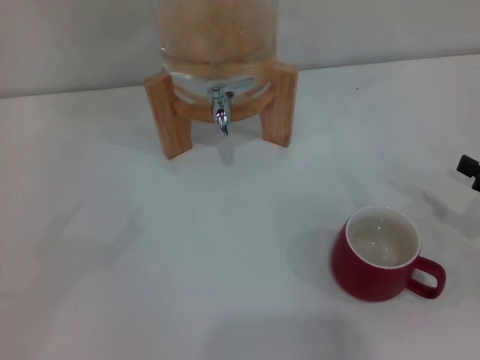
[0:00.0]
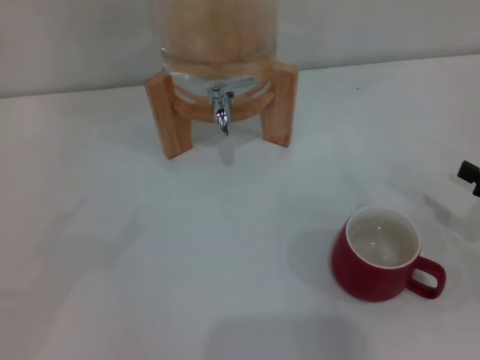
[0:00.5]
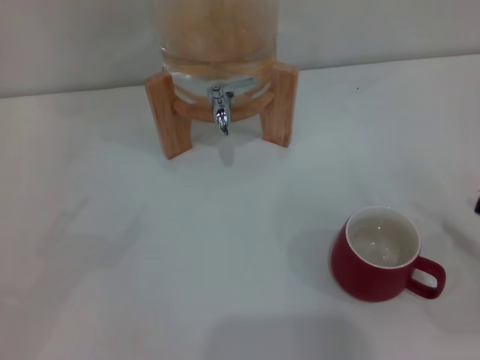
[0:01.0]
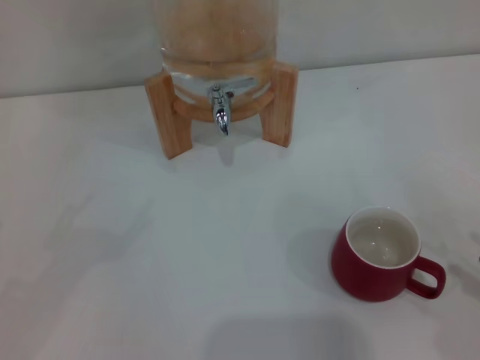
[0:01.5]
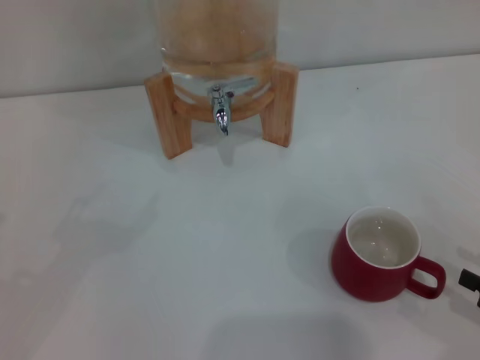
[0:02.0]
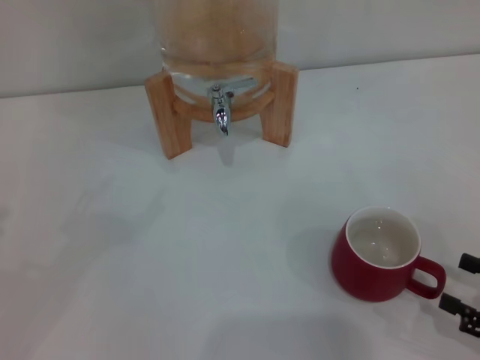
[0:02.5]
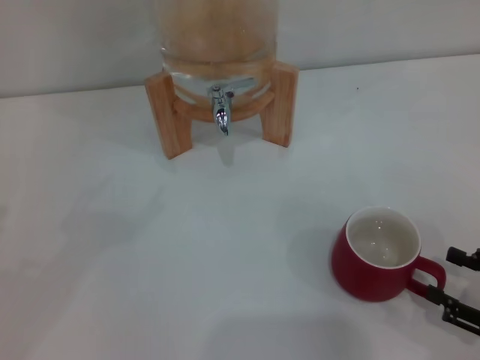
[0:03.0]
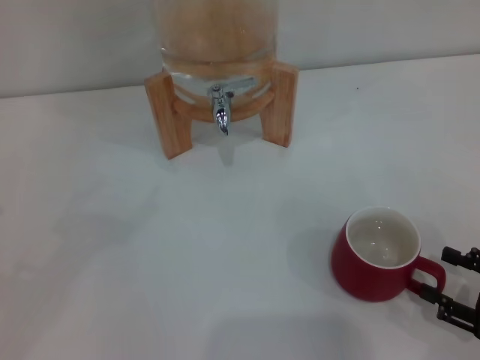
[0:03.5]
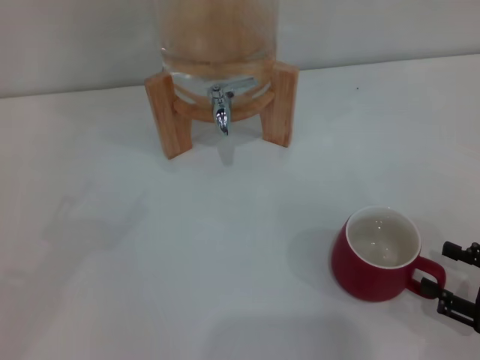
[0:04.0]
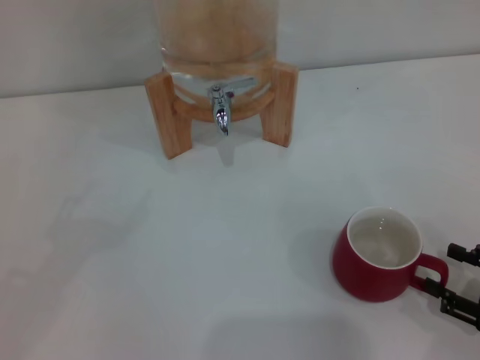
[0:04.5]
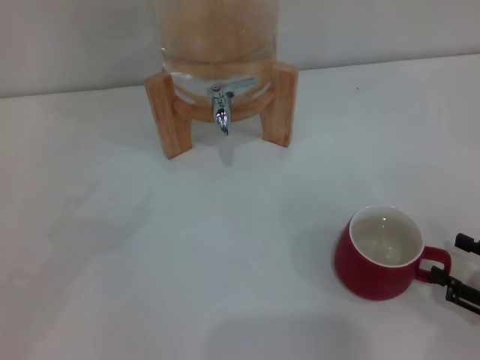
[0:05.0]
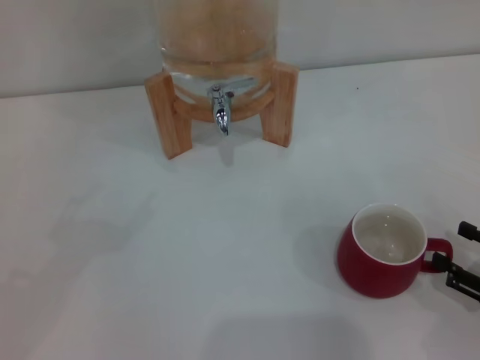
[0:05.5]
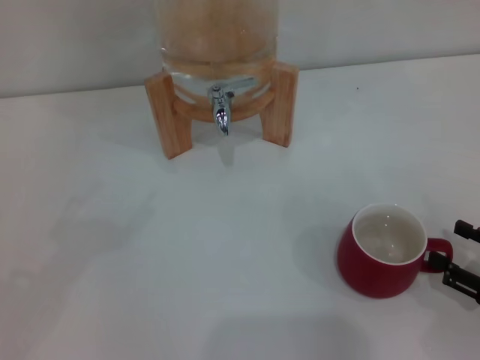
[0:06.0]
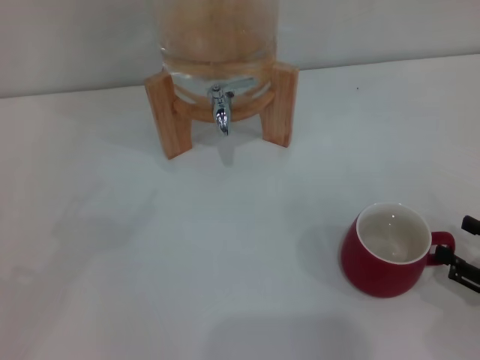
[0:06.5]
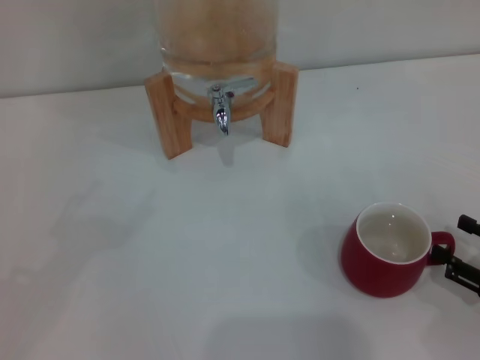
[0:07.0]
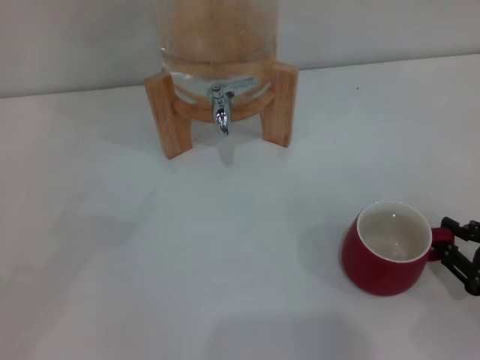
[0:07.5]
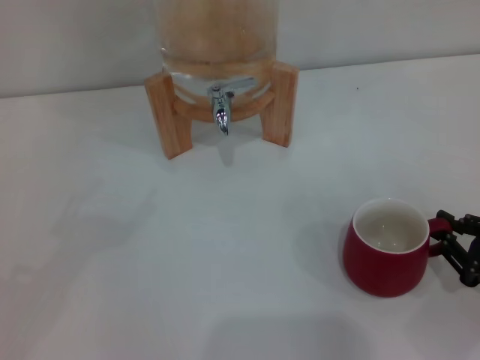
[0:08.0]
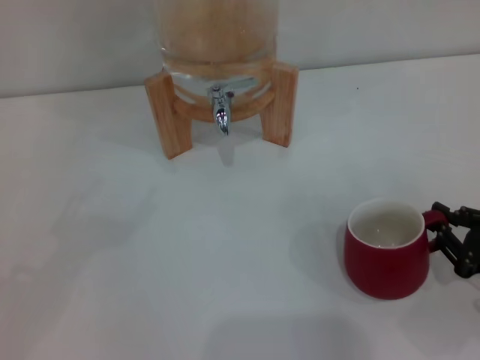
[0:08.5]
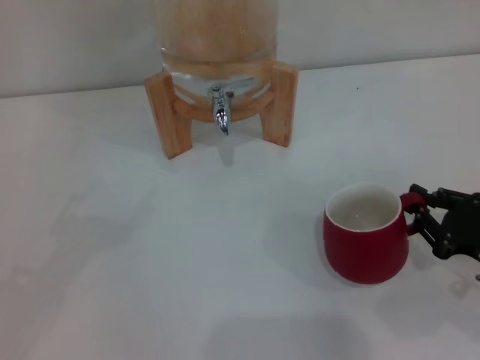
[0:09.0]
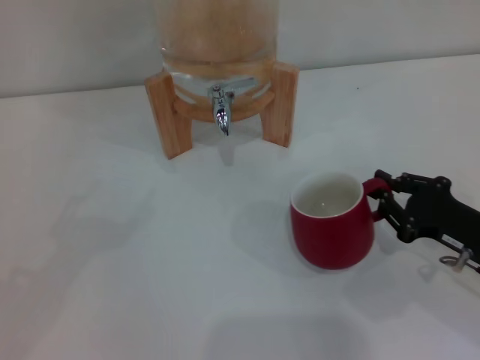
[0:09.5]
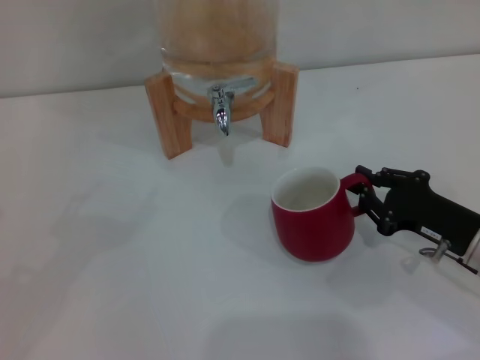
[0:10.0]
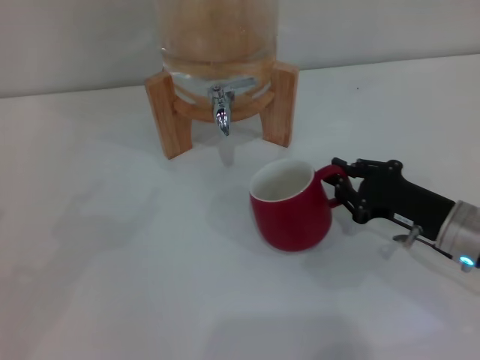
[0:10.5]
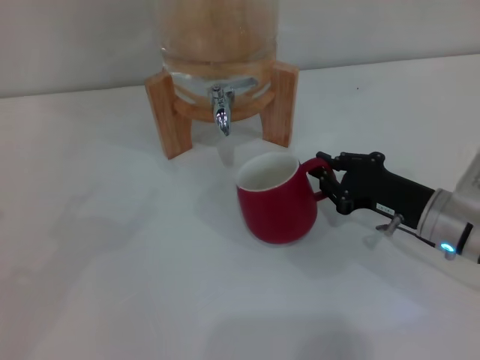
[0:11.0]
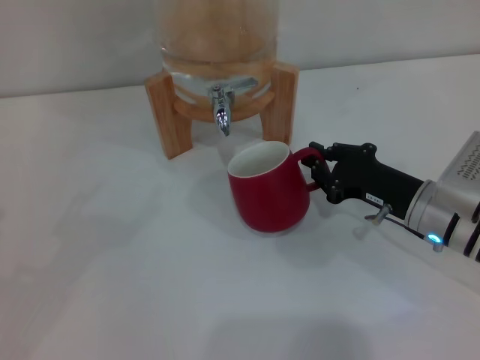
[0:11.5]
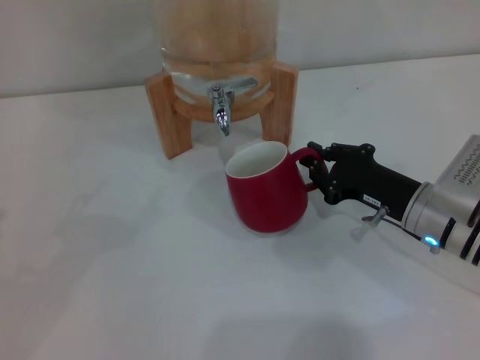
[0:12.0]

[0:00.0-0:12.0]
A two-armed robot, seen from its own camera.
Task of the whole recording: the right gripper pick up the red cup and place it horizontally under the faucet, the left gripper turn on the faucet to fill the cup, and then turn off the faucet.
0:00.0 to 0:02.0: The right gripper moves backward, approximately 10 cm.
0:02.0 to 0:06.0: The grippers move only a little.
0:06.0 to 0:08.0: The right gripper closes up.
0:08.0 to 0:10.0: The right gripper moves forward and to the left, approximately 10 cm.
0:10.0 to 0:12.0: The right gripper goes approximately 5 cm forward.

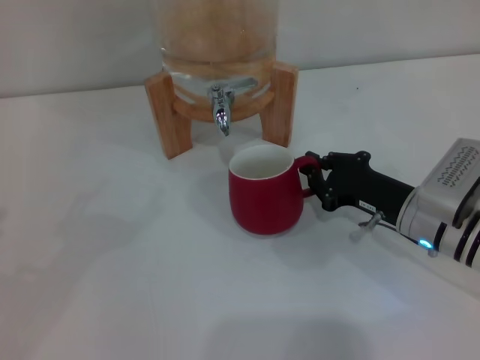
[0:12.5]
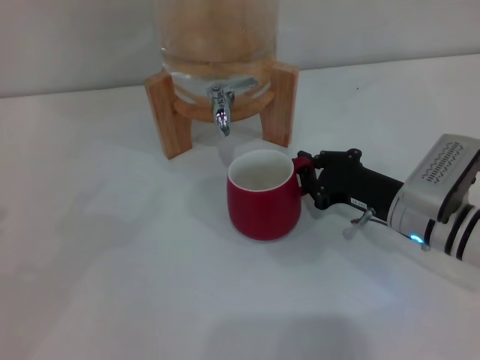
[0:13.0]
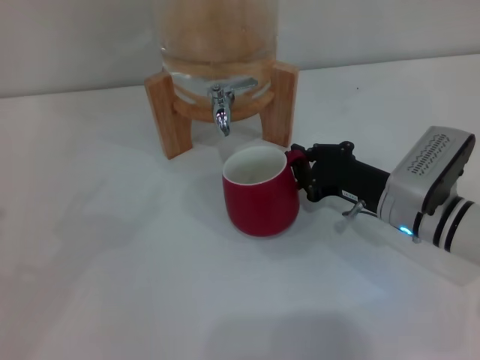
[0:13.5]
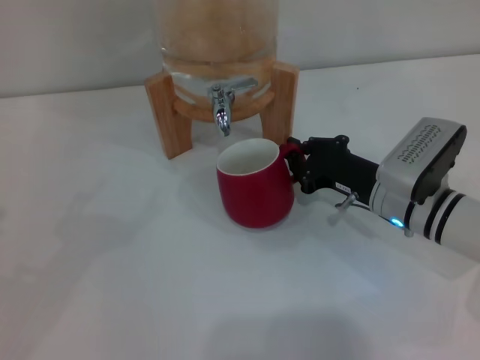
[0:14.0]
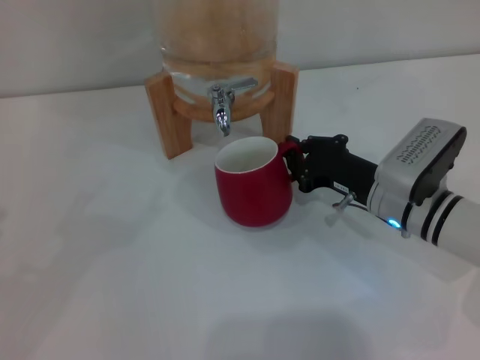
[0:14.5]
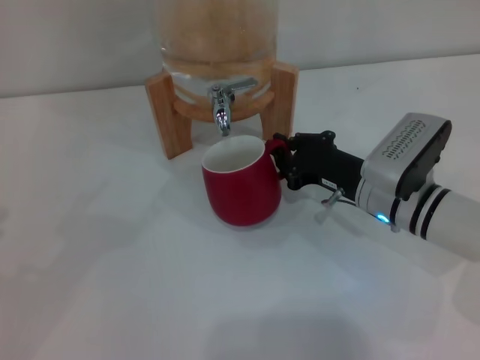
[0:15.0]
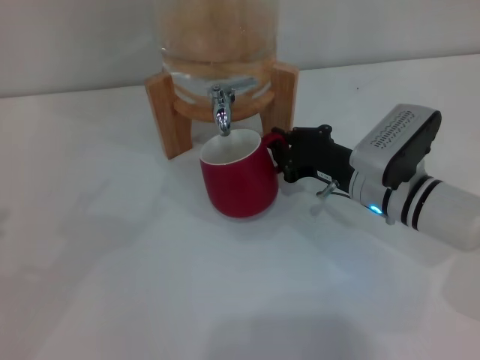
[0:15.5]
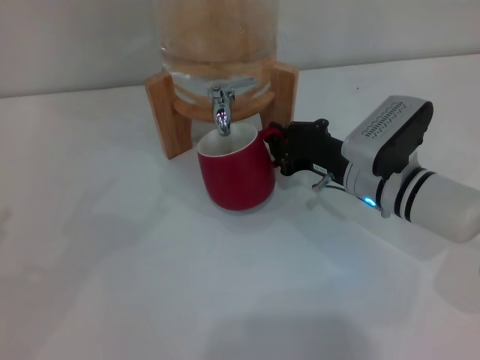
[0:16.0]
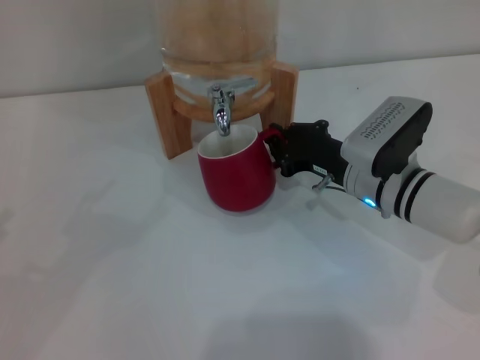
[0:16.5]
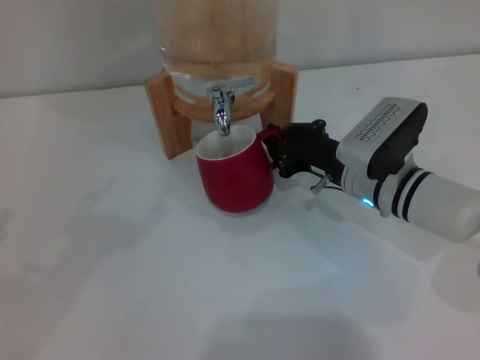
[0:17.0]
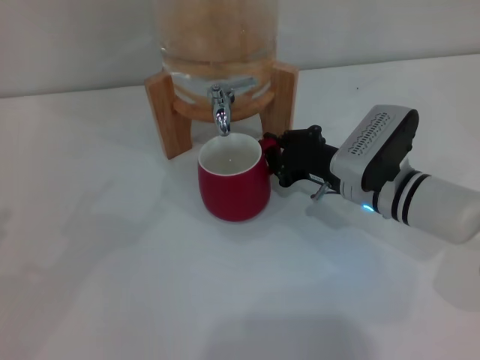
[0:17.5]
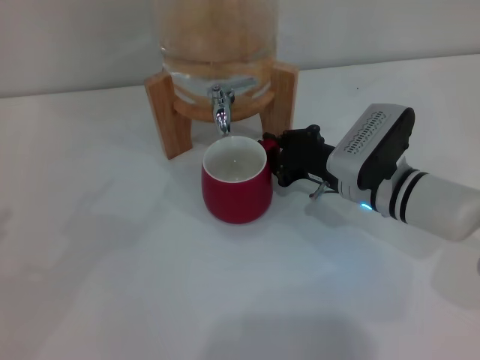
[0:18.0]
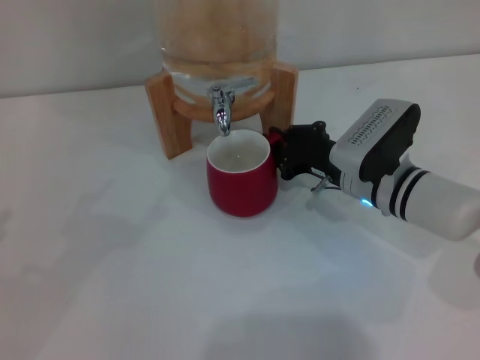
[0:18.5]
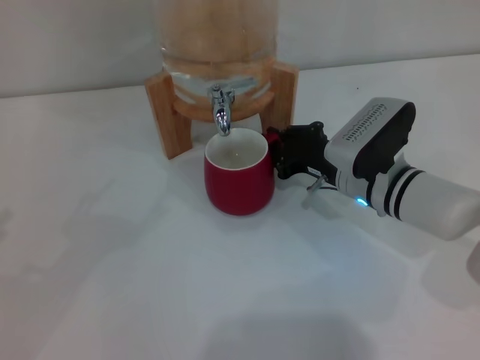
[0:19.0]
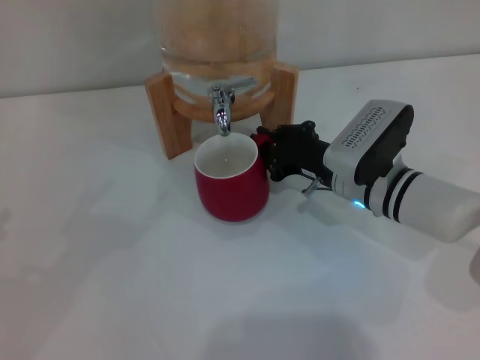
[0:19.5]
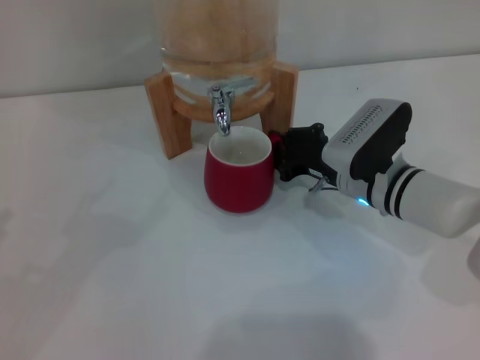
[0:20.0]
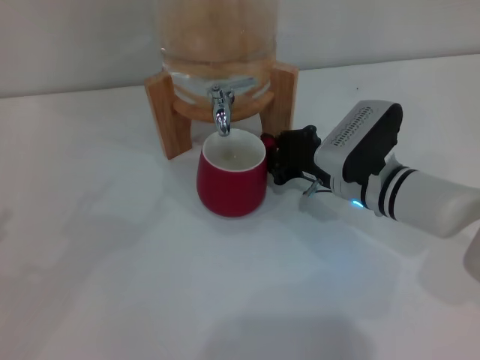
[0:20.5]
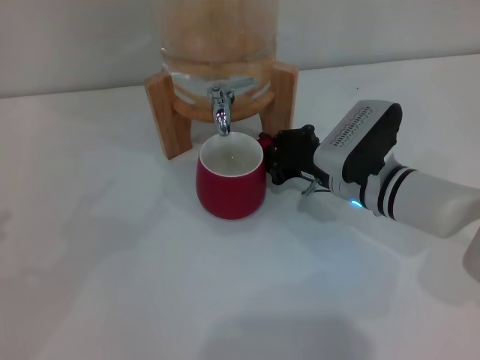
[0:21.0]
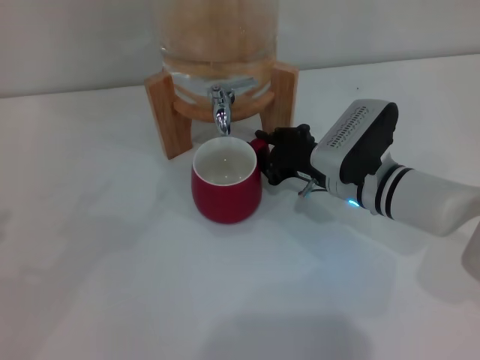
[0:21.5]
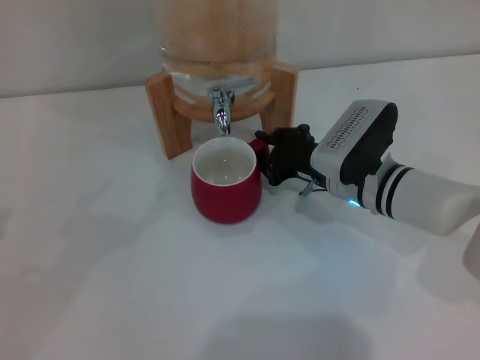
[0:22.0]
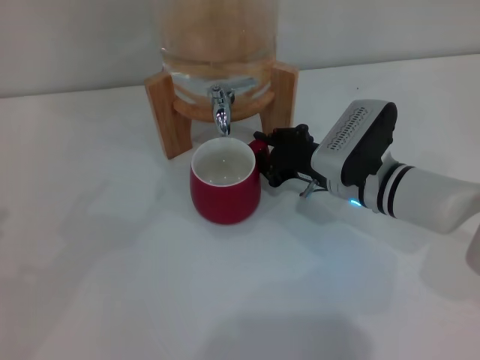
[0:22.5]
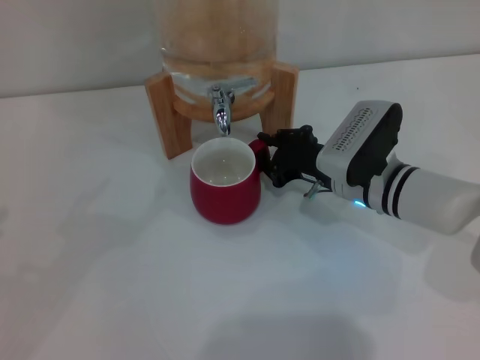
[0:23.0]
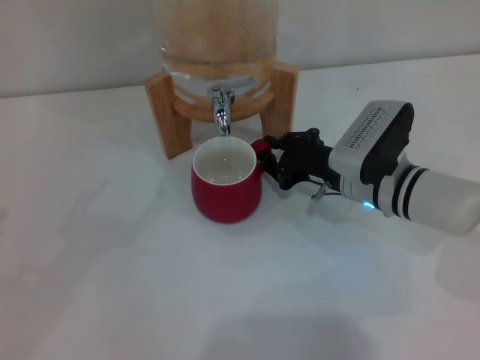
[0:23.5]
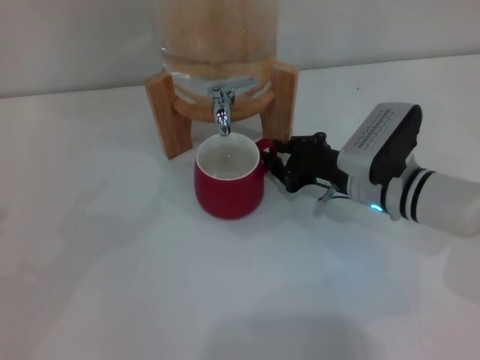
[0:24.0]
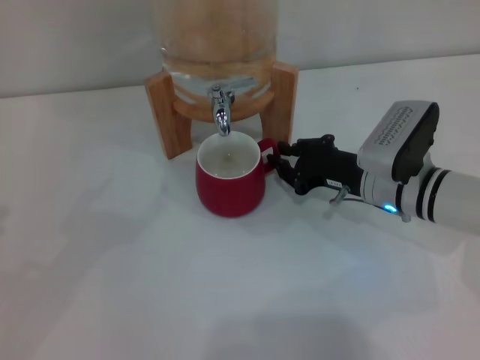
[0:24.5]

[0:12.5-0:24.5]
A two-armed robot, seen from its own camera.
Task of the whole recording: the right gripper pick up the red cup and place it horizontally under the faucet, the left gripper turn on the faucet to fill the cup, and then turn off the faucet.
0:12.5 to 0:14.5: The grippers move only a little.
0:14.5 to 0:18.5: The grippers make only small movements.
0:18.5 to 0:20.5: Both grippers stay about where they are.
0:20.5 to 0:22.5: Both grippers stay put.
0:22.5 to 0:24.5: The grippers make only small movements.

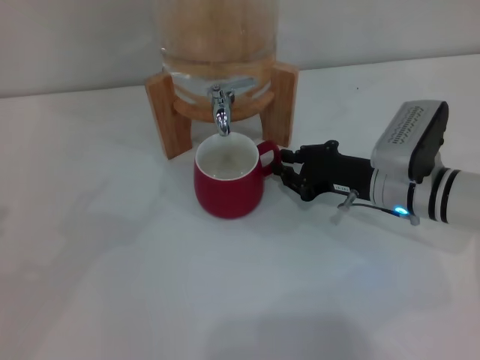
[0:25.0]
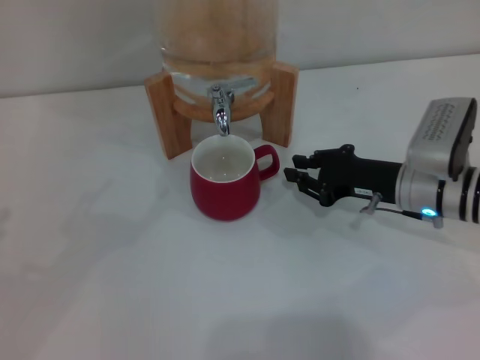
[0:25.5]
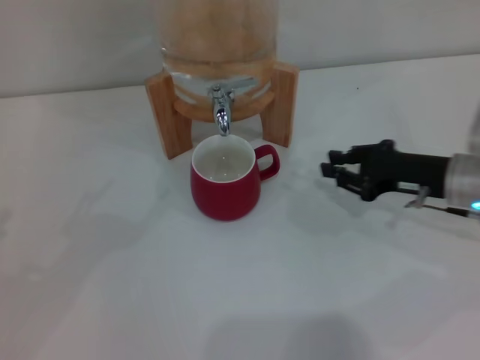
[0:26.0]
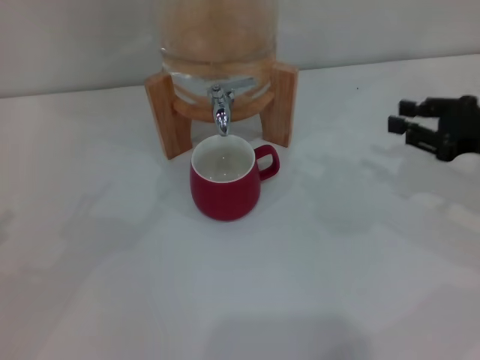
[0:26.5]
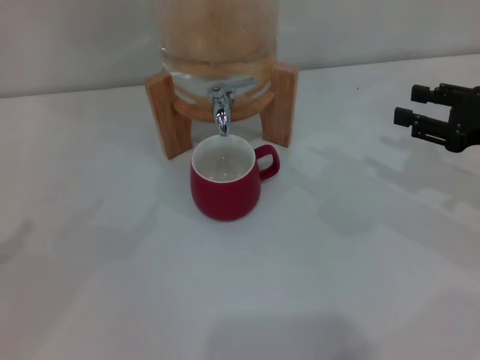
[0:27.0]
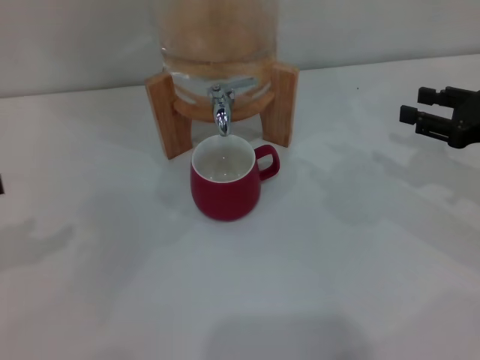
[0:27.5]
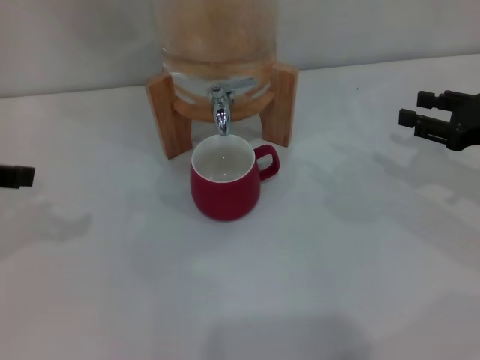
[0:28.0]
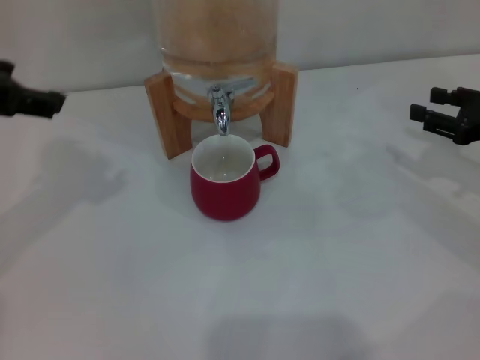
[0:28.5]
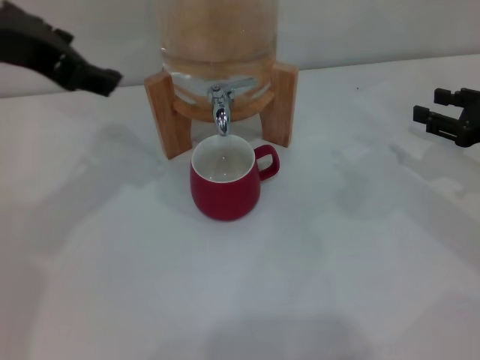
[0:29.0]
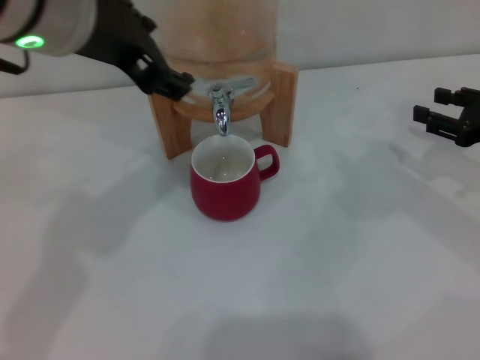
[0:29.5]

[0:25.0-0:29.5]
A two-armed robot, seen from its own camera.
Task of the whole recording: the right gripper pick up the red cup and place it horizontally under the faucet, the left gripper turn on the faucet to fill the cup, and then turn off the faucet.
0:25.0 to 0:27.0: The right gripper shifts approximately 15 cm to the right and upward, and opens up.
0:27.0 to 0:29.5: The left gripper shifts some 35 cm to the right and upward.
